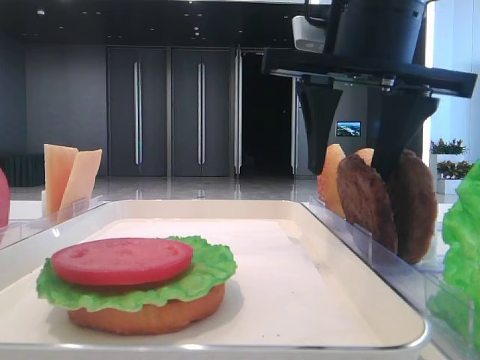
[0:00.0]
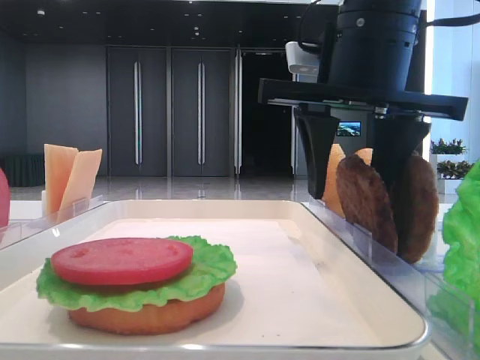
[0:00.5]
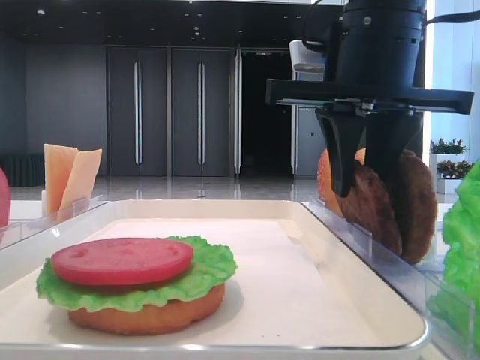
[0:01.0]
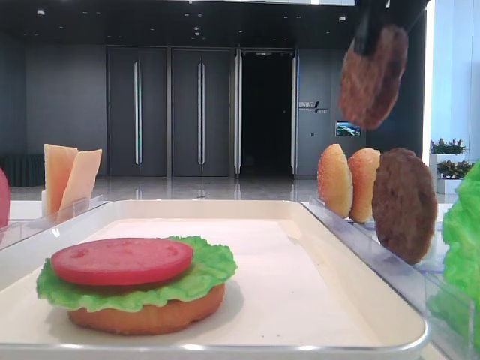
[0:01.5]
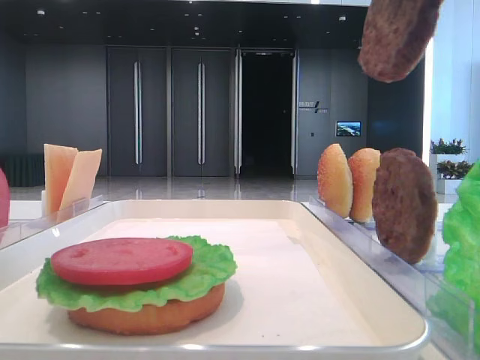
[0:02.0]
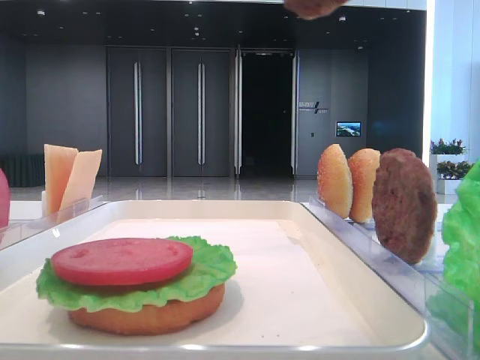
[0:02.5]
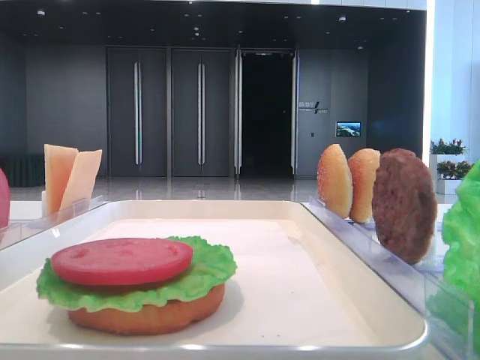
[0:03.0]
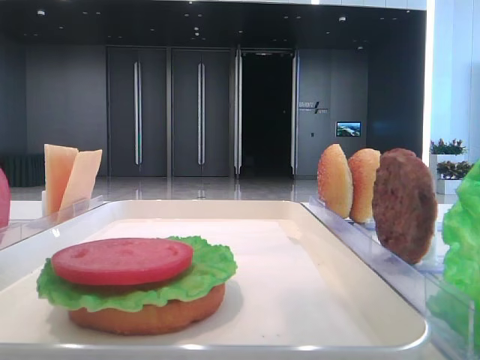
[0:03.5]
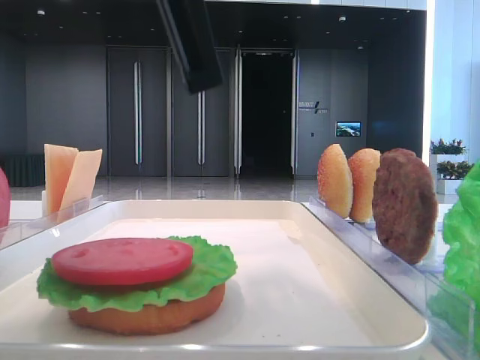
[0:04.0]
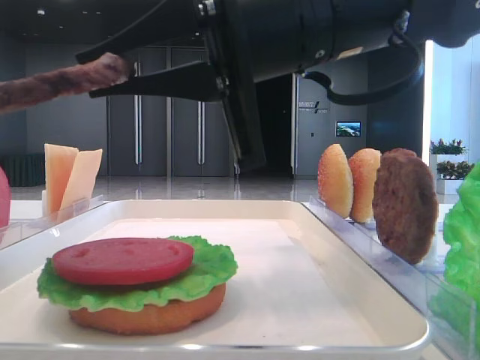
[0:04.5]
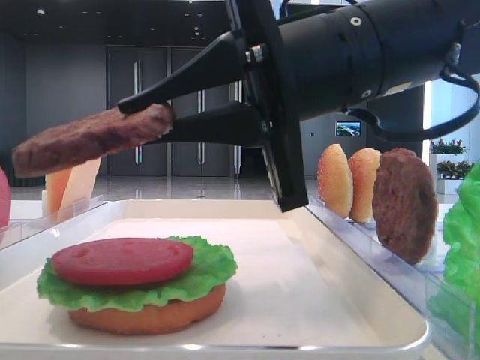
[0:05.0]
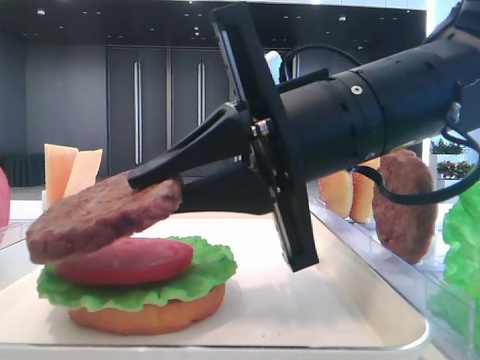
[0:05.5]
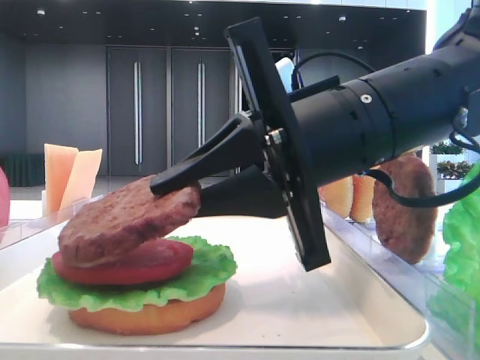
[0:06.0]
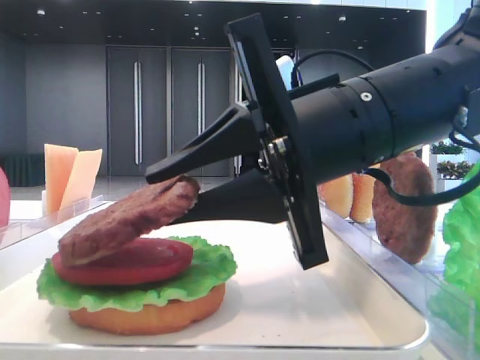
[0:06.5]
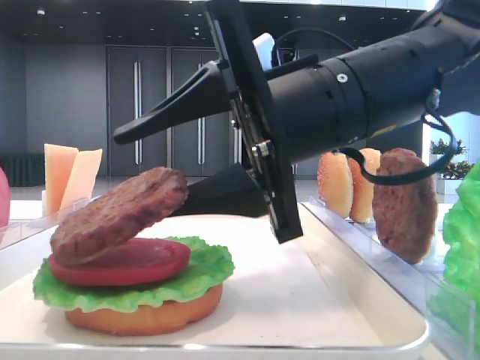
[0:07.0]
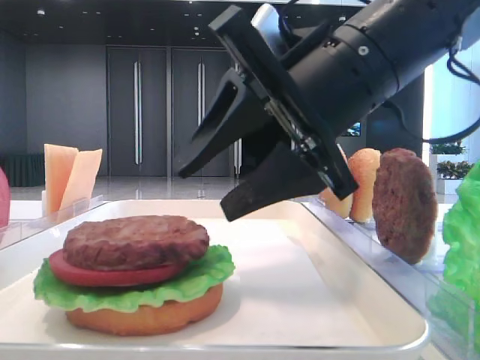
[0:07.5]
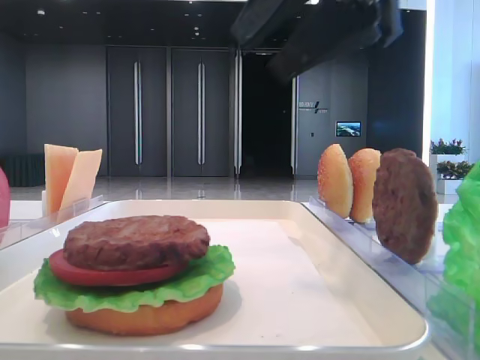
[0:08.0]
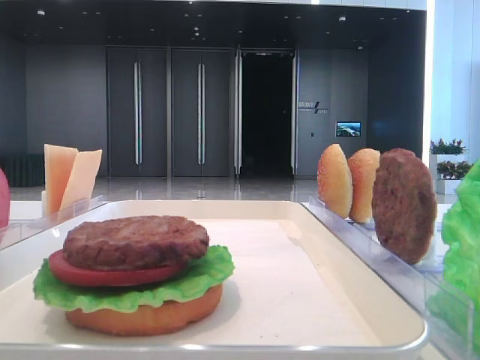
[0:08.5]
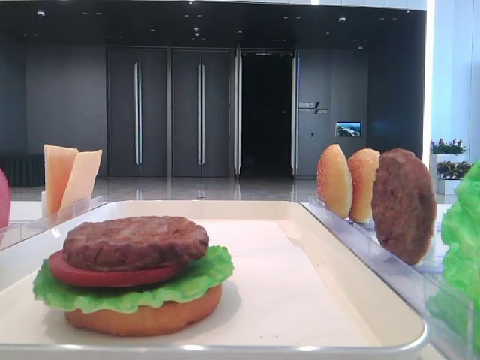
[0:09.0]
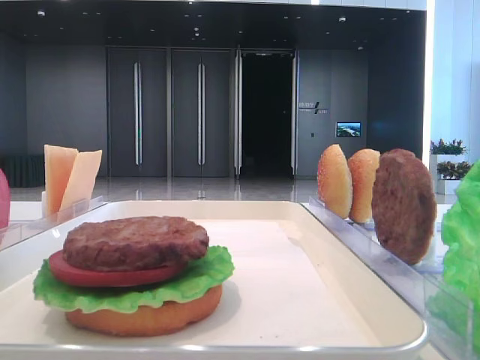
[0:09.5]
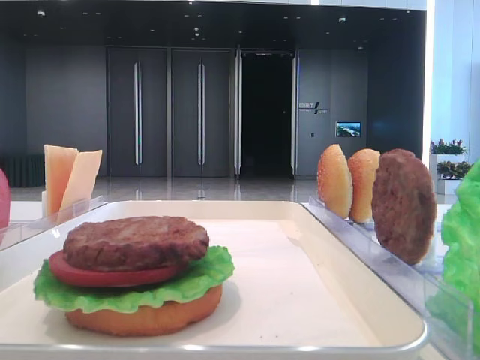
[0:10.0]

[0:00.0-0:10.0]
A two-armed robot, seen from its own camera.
Step, 0:01.5 to 0:07.0: Place the patty on the tomato slice with the right hand.
0:00.0 to 0:02.0: The right gripper goes roughly 15 cm upward and backward, and closes up.
0:02.0 to 0:04.0: The right gripper heads to the left and downward, covering some 15 cm.
0:04.0 to 0:06.0: The right gripper goes some 15 cm downward, to the right and forward.
0:06.0 to 0:08.0: The right gripper goes some 15 cm upward, and opens up.
0:08.0 to 0:10.0: The right gripper heads backward and to the right, covering approximately 30 cm.

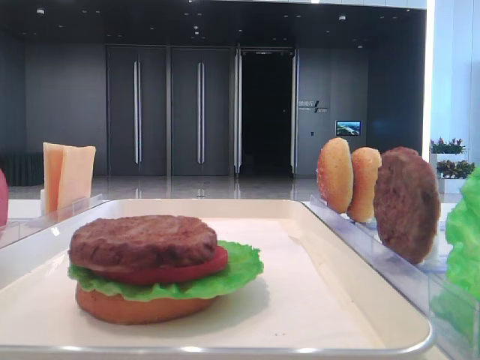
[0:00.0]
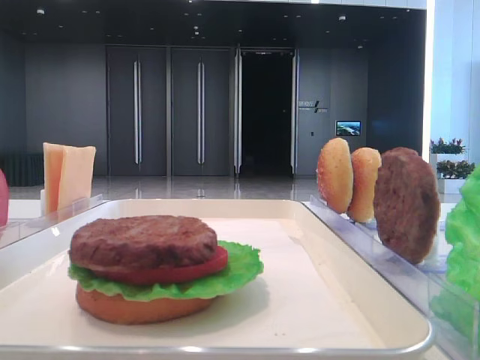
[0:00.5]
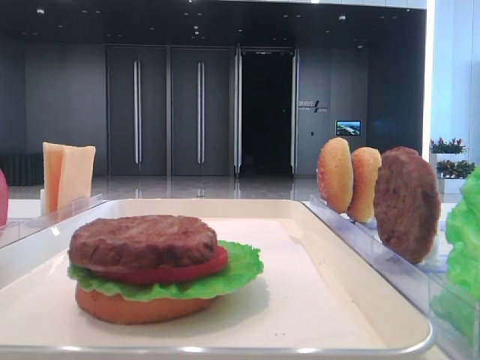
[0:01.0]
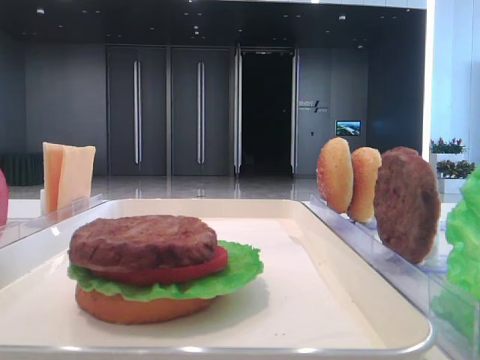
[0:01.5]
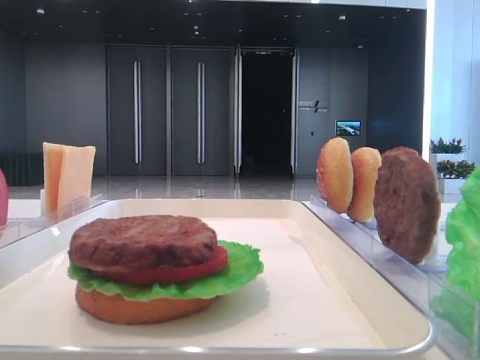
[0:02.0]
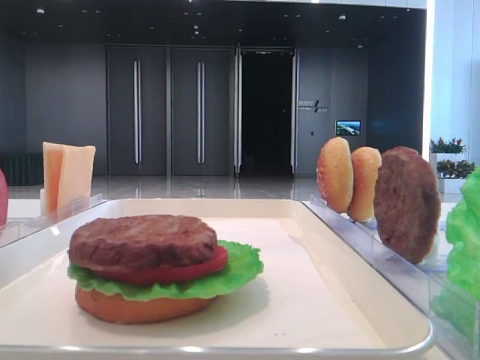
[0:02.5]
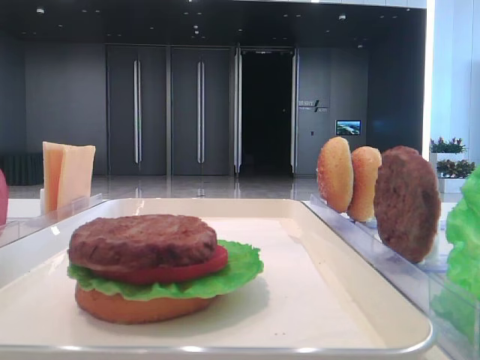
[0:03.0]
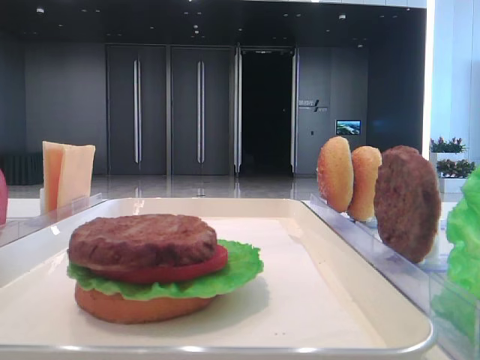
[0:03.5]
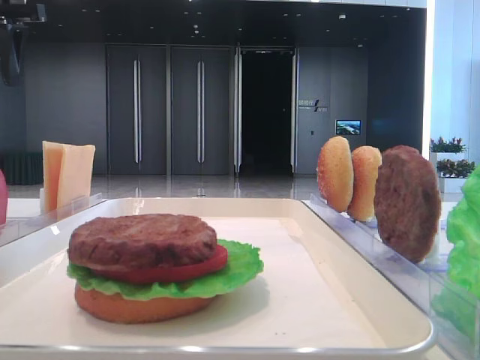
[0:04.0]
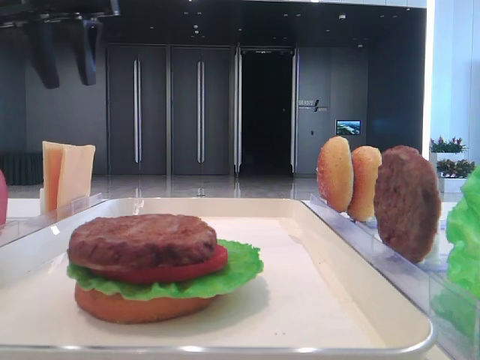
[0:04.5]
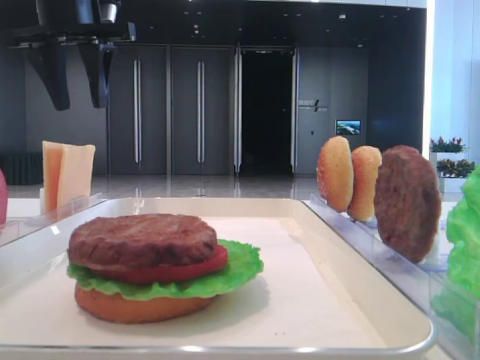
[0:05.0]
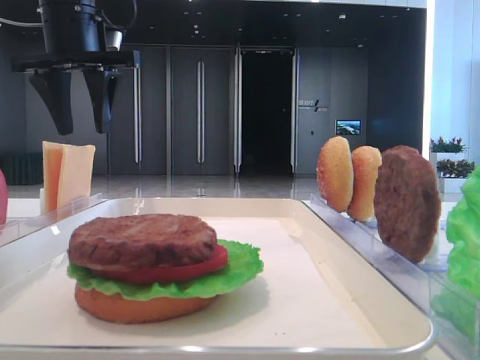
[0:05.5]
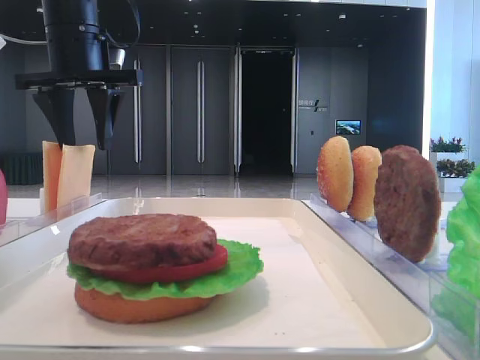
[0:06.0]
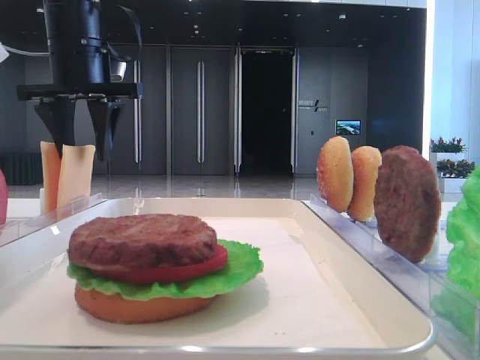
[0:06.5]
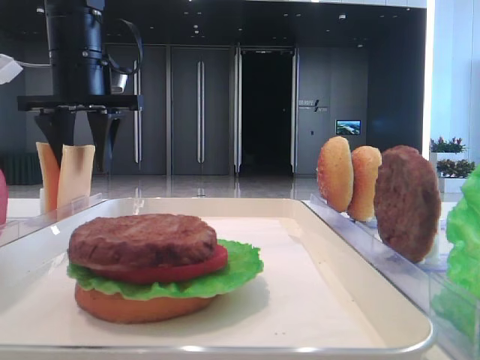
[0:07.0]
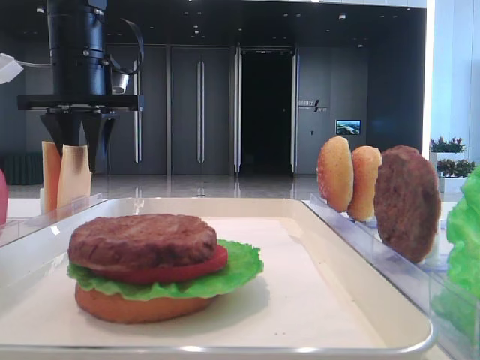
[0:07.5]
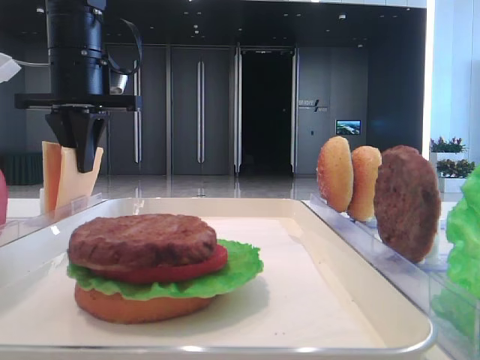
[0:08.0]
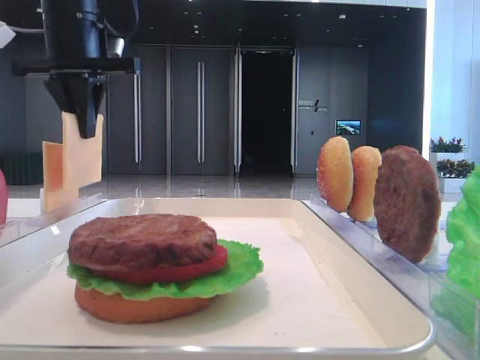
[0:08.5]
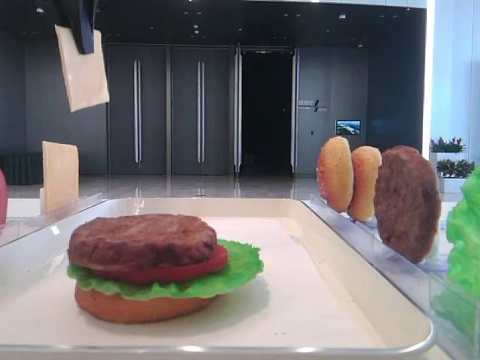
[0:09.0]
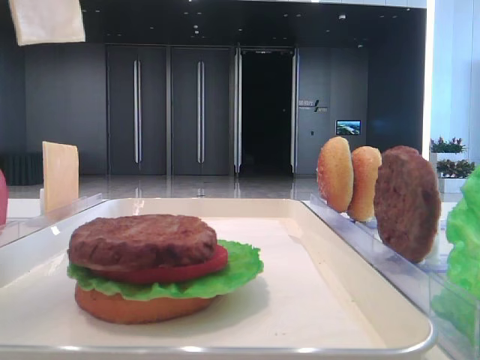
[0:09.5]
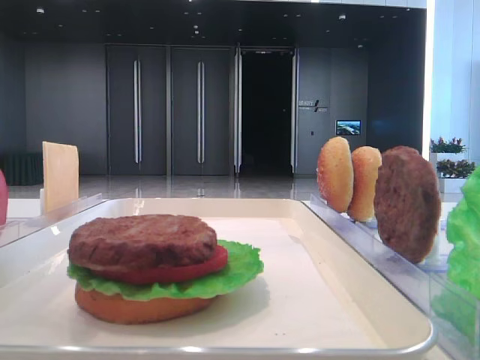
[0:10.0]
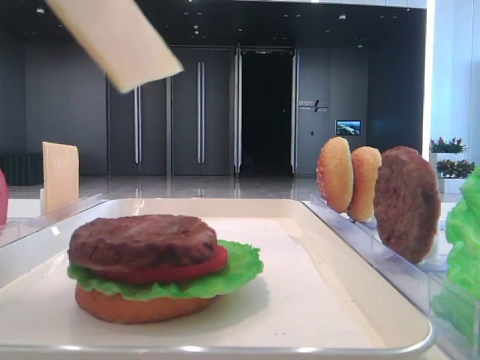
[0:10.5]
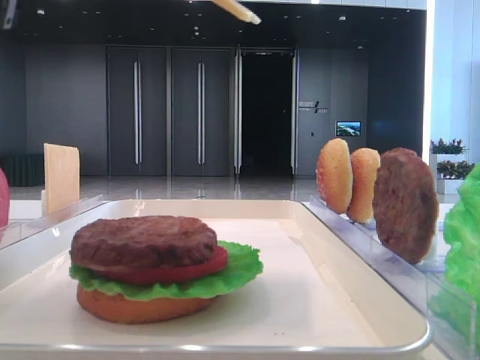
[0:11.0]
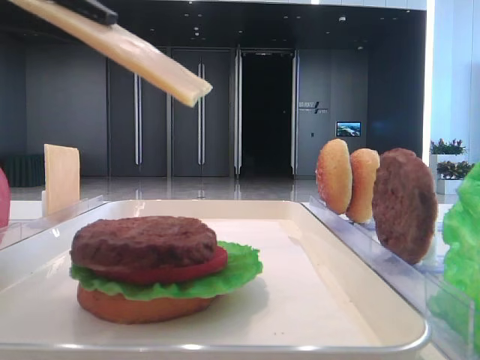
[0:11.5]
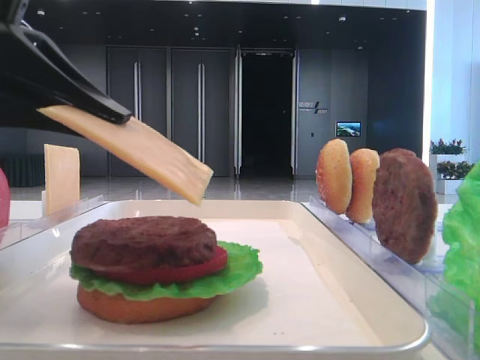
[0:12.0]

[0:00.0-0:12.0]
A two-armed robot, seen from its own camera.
Step, 0:00.0 to 0:08.0: Pick up the cheese slice with the left hand.
0:02.0 to 0:04.0: The left gripper is displaced forward by roughly 40 cm.
0:04.0 to 0:06.0: The left gripper heads to the right and downward, covering about 15 cm.
0:06.0 to 0:08.0: The left gripper closes its fingers.
0:08.0 to 0:10.0: The left gripper moves backward and upward, some 30 cm.
0:10.0 to 0:12.0: The left gripper is displaced downward by about 15 cm.

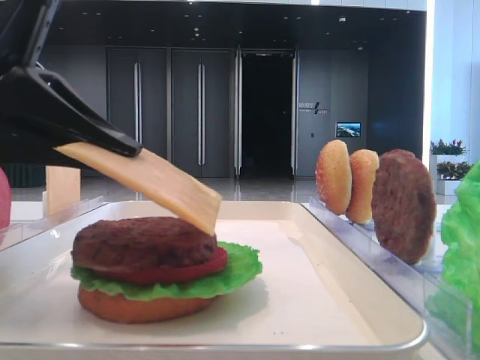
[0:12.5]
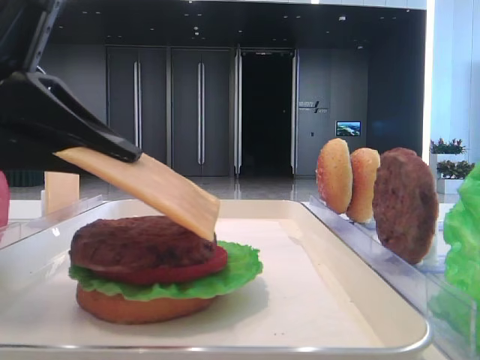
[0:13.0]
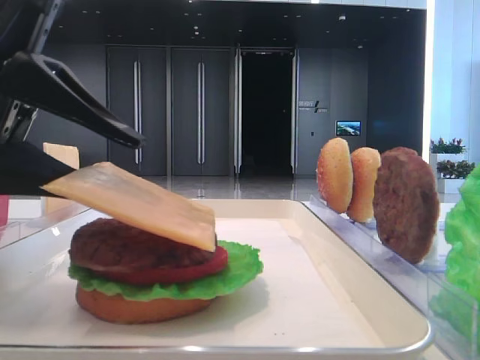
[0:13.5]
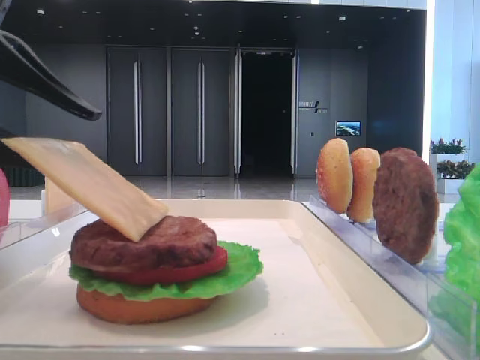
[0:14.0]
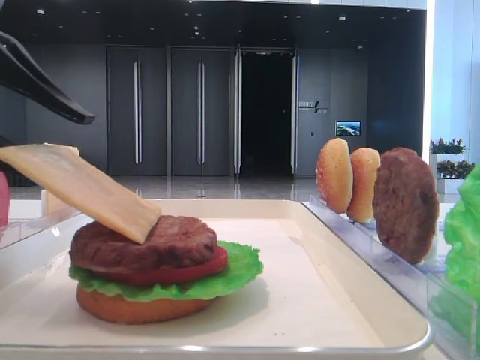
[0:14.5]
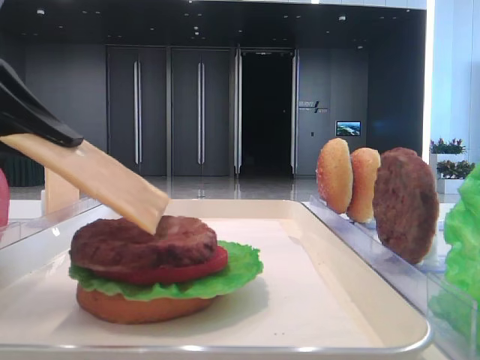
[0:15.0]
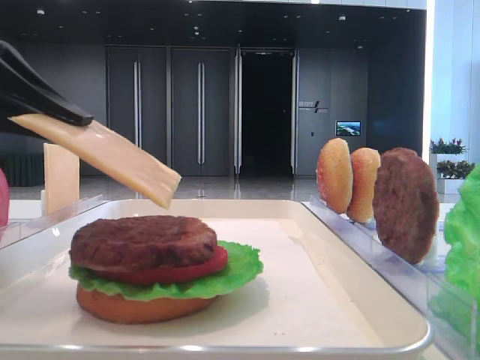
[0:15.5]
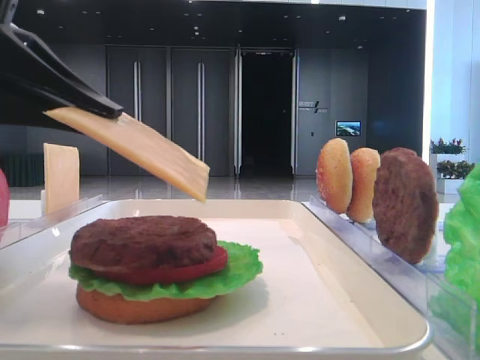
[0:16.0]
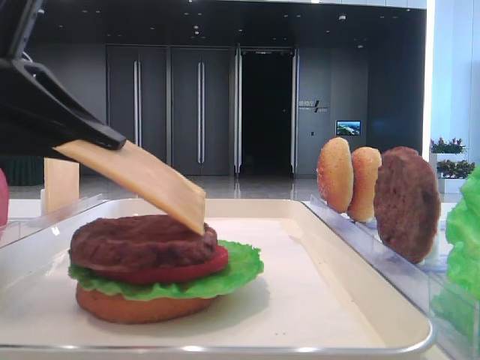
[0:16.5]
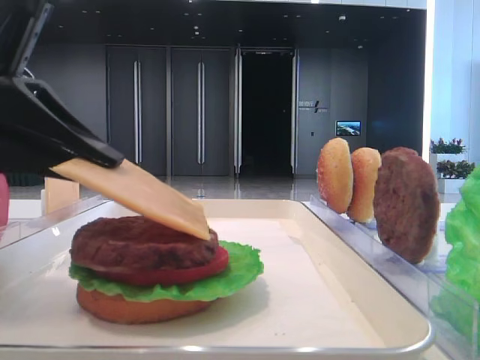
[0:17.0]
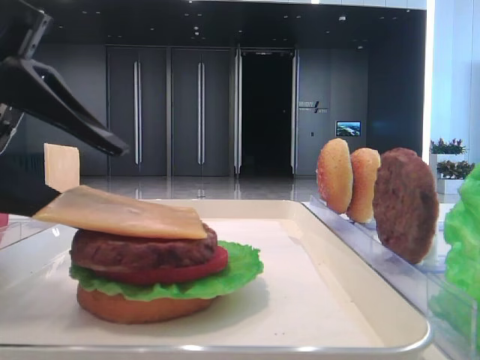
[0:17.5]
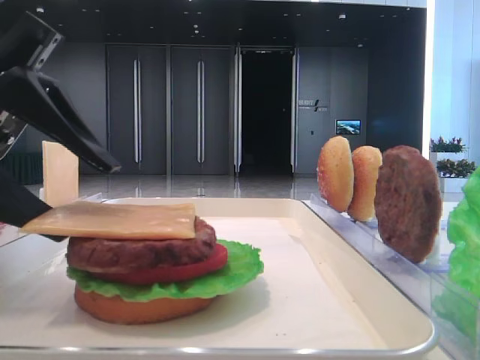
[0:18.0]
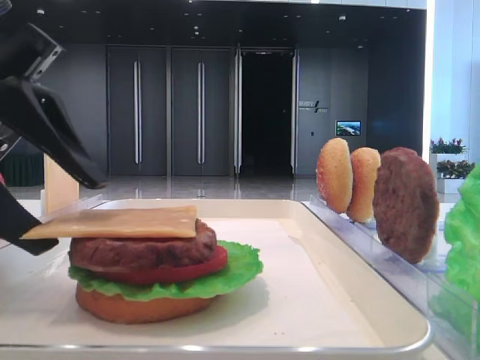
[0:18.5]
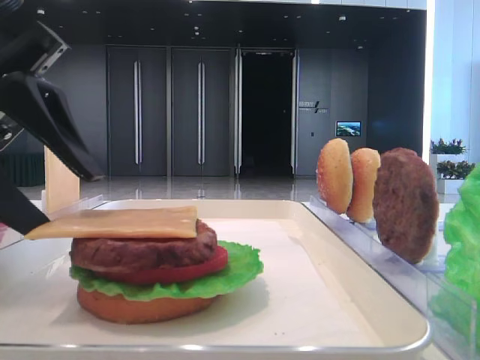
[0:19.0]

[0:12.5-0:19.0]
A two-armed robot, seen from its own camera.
Step, 0:12.5 to 0:18.0: Place the cheese slice on the patty with the left hand.
0:12.5 to 0:14.5: The left gripper opens its fingers.
0:14.5 to 0:17.0: The left gripper closes.
0:17.0 to 0:19.0: The left gripper opens its fingers.
